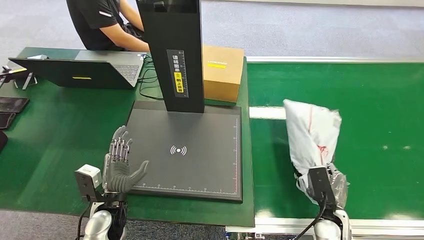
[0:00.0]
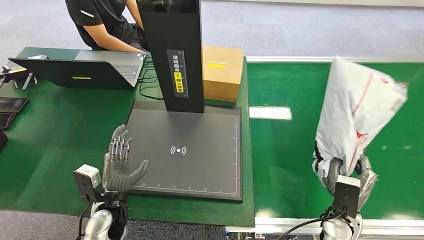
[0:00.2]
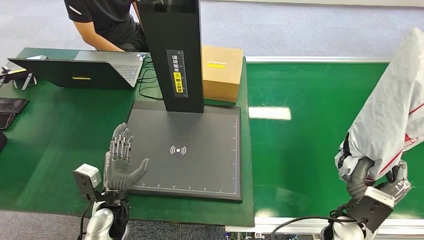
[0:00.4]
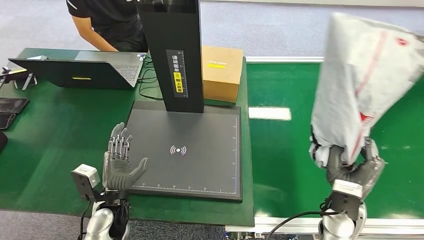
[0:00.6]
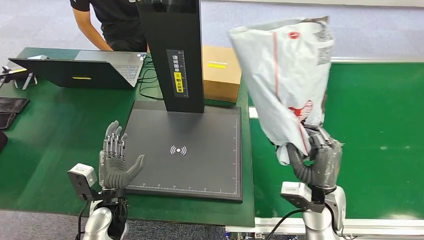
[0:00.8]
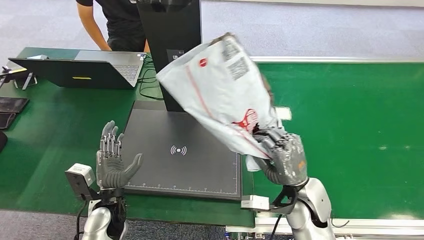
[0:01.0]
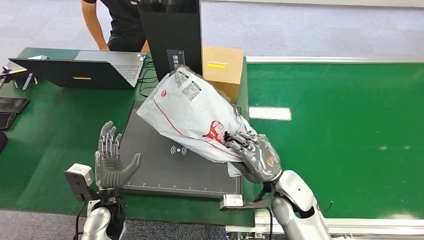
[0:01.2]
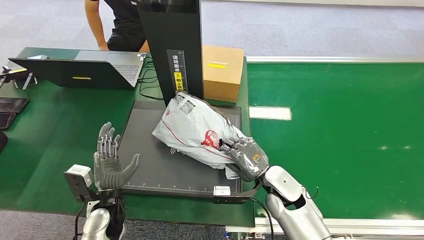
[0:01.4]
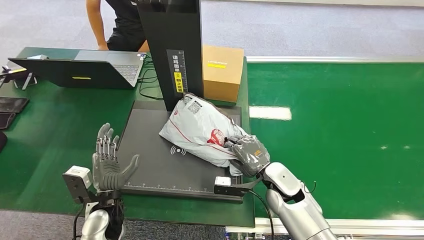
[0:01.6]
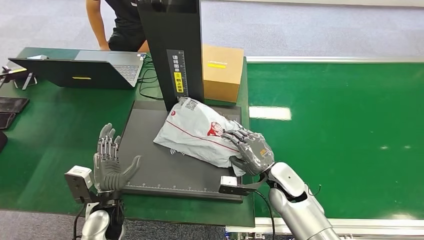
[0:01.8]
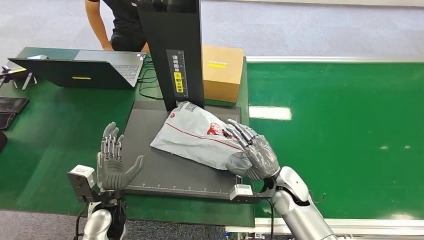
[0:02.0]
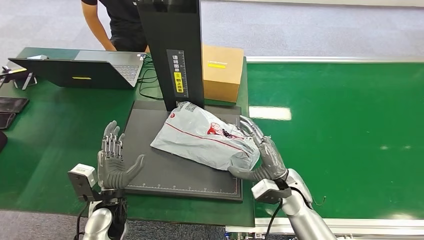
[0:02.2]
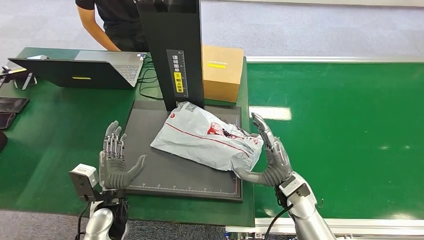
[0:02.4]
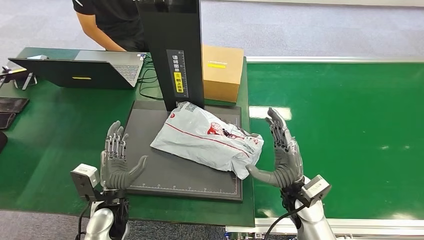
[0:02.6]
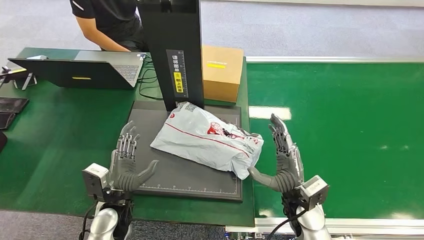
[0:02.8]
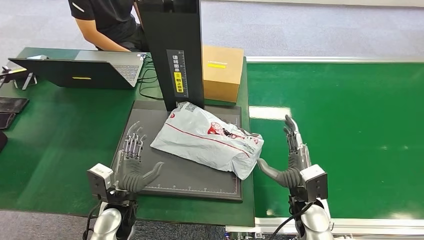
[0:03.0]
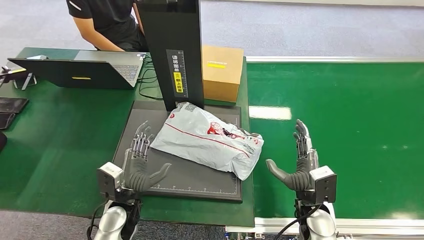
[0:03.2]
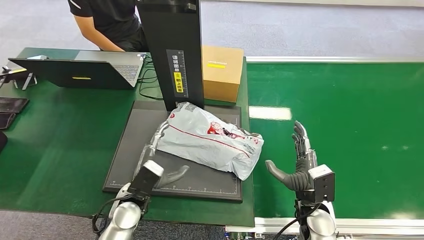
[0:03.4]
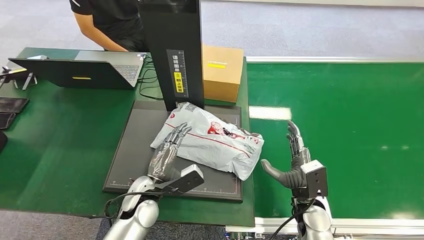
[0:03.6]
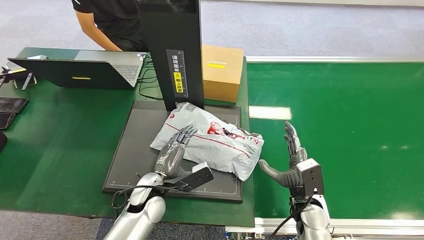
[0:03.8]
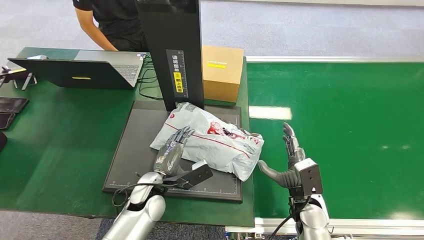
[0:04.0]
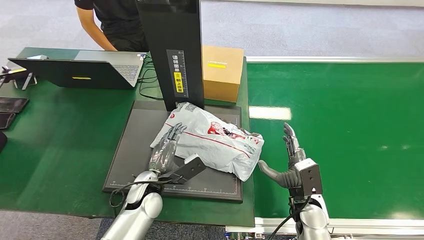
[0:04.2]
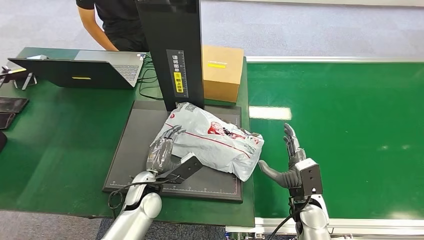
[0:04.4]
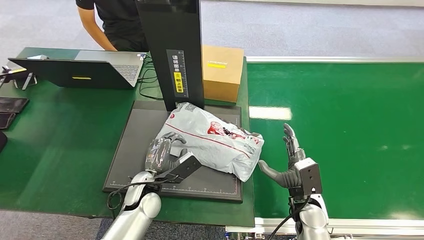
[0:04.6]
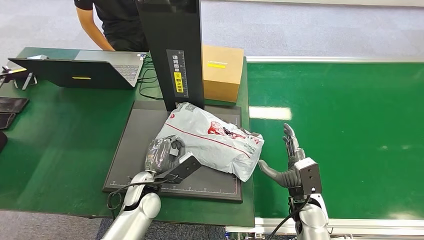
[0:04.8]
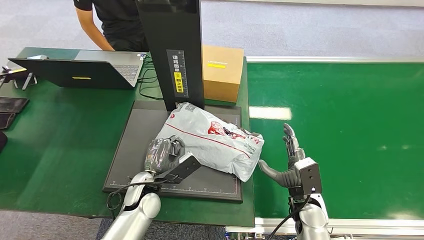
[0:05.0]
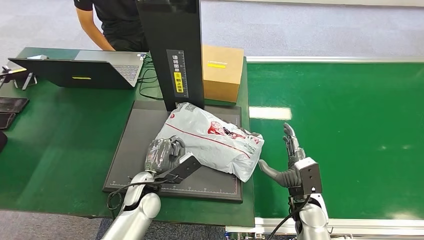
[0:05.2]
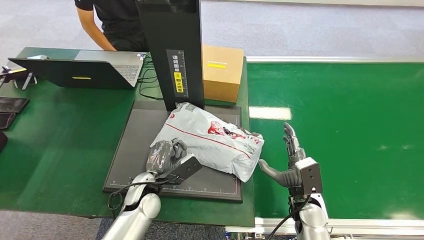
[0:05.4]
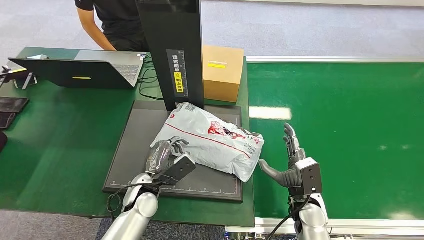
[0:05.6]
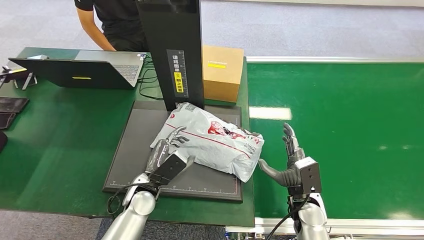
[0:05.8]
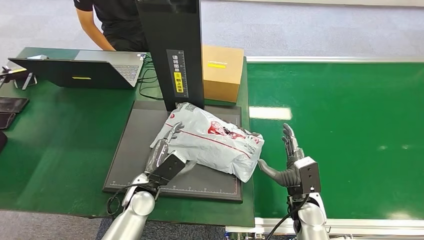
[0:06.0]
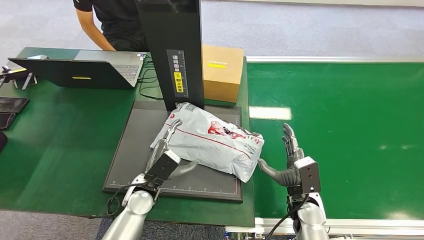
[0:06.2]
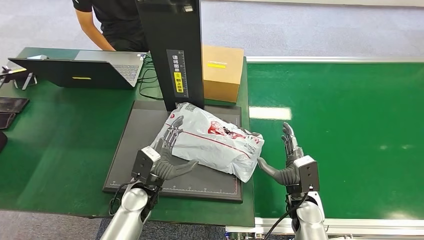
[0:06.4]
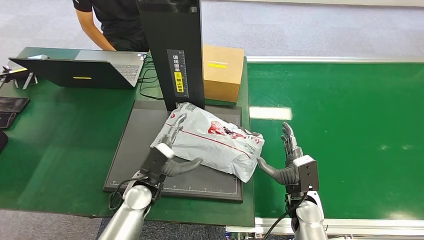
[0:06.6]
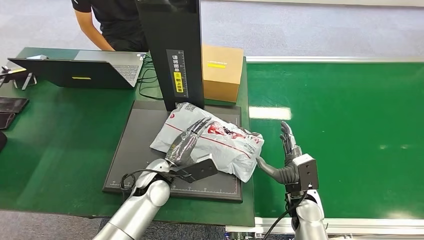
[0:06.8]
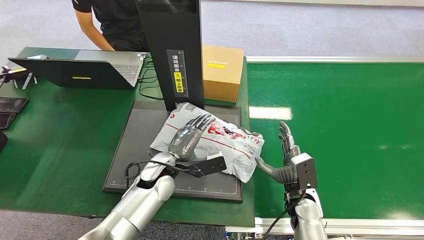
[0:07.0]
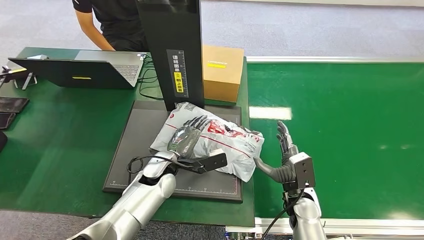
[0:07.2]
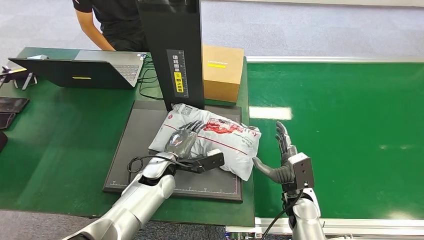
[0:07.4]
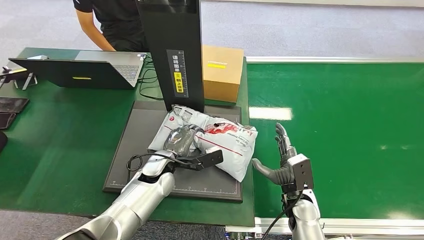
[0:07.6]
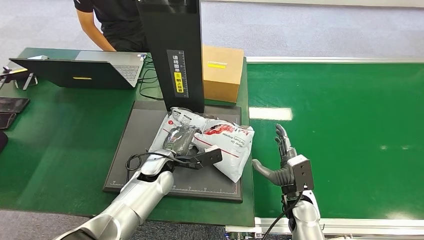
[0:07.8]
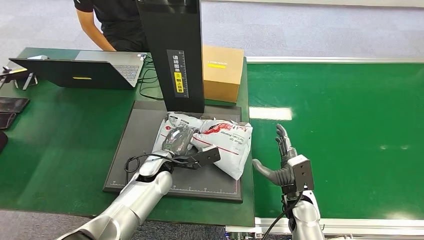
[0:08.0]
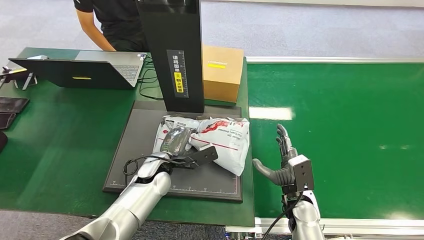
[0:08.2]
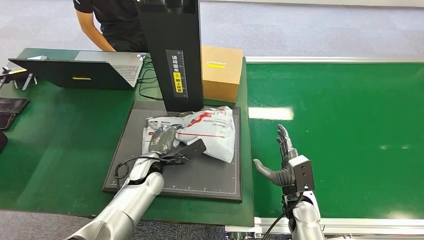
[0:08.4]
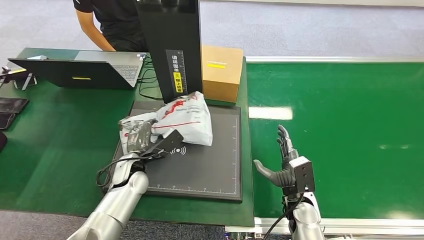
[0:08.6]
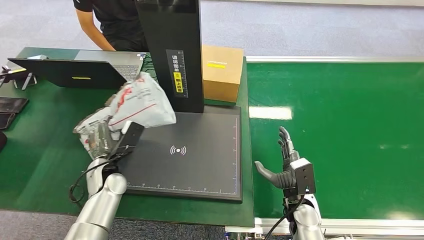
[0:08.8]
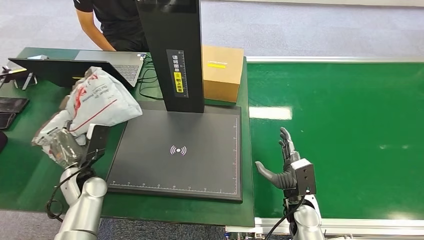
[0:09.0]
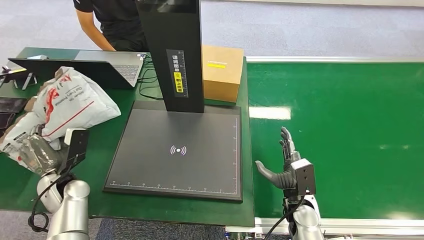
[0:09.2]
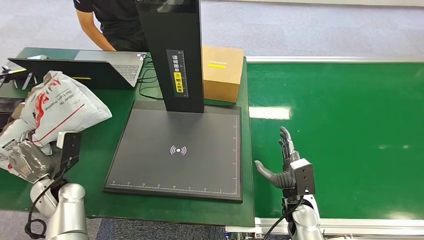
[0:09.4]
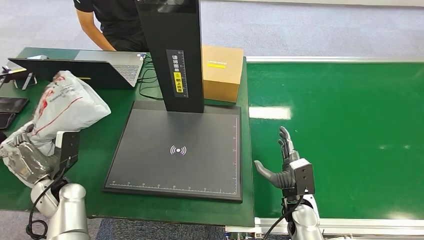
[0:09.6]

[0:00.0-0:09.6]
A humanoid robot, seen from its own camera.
Step, 0:00.4 to 0:03.0: Place the package onto the inbound machine.
Step, 0:03.2 to 0:08.8: Pick up the package from the inbound machine.
0:01.6 to 0:03.2: The right hand is displaced to the right and backward by about 10 cm.
0:03.2 to 0:04.8: The left hand shifts by some 5 cm.
0:06.4 to 0:08.0: The left hand shifts approximately 5 cm forward.

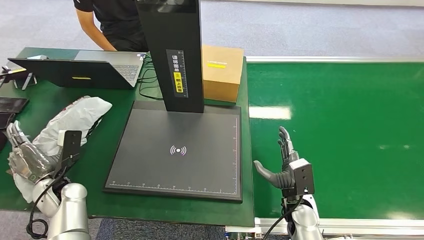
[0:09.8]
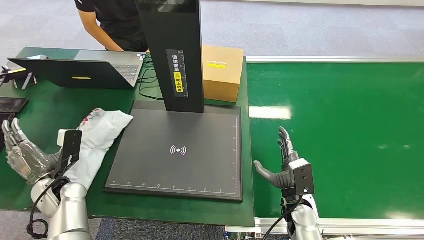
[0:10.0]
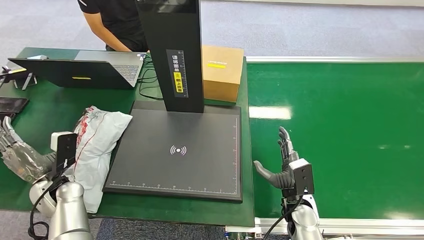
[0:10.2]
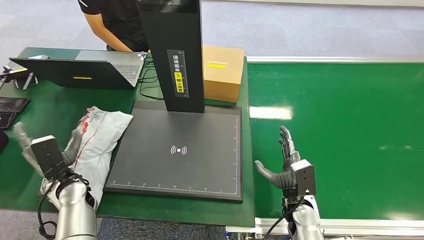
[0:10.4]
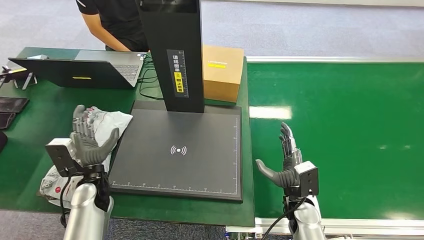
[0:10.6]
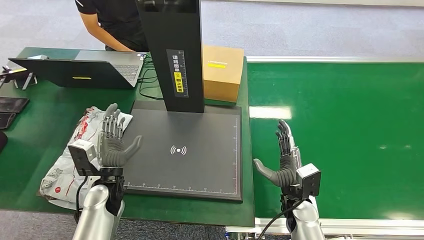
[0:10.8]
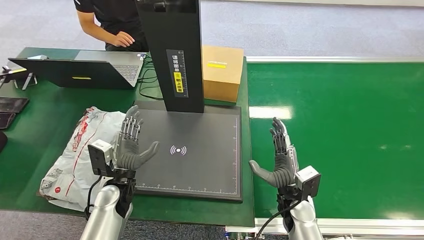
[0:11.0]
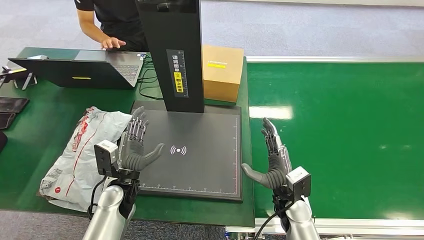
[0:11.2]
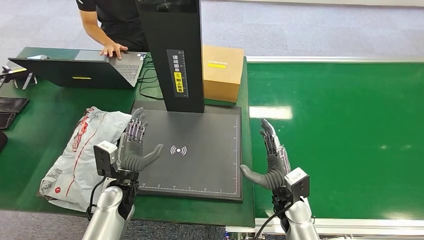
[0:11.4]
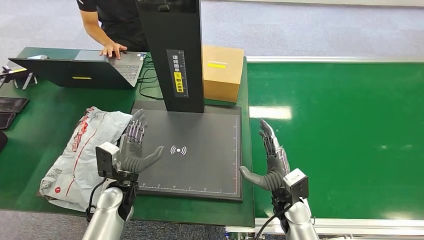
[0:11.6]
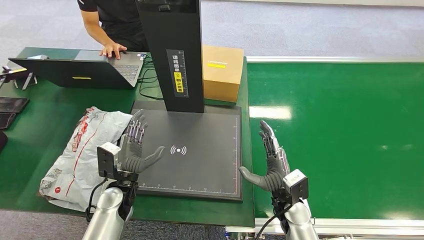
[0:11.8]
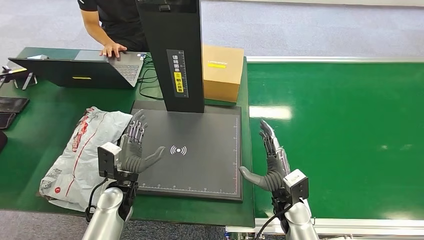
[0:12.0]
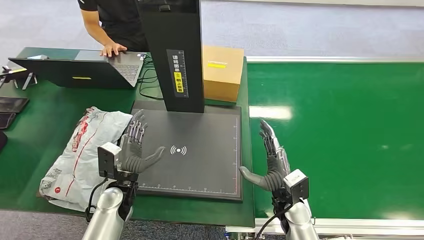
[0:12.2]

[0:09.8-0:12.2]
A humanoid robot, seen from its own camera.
Step, 0:09.8 to 0:12.0: Place the package into the parcel locker.
0:09.8 to 0:11.0: The left hand heads to the right, covering approximately 15 cm.
0:11.0 to 0:12.2: The hands stay close to where they were, moving slightly.
